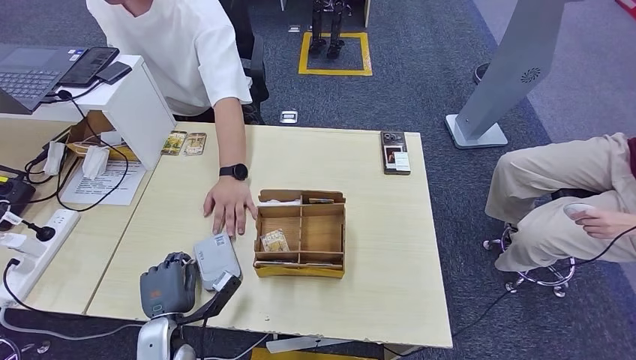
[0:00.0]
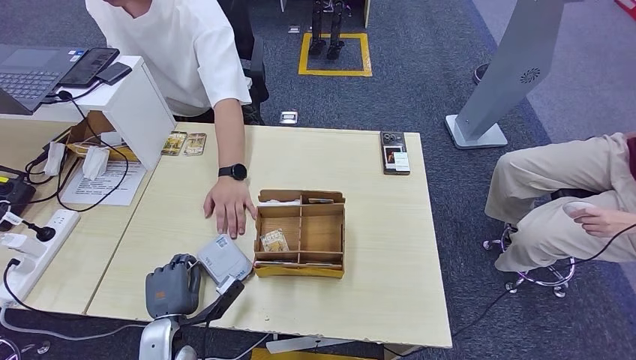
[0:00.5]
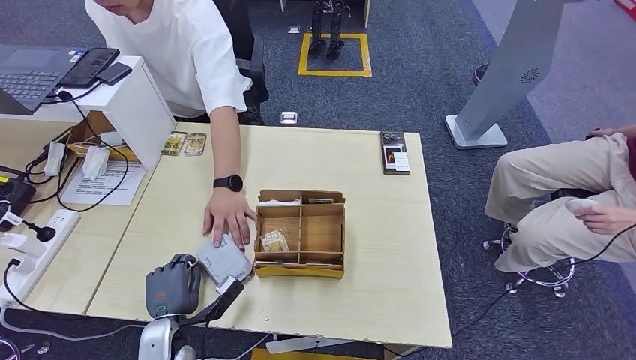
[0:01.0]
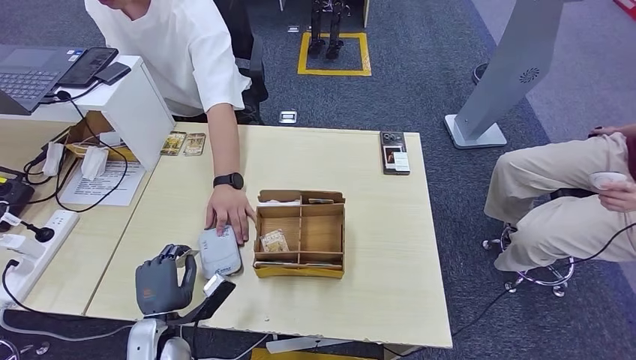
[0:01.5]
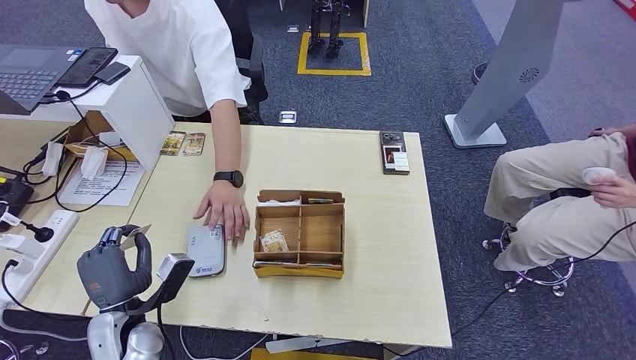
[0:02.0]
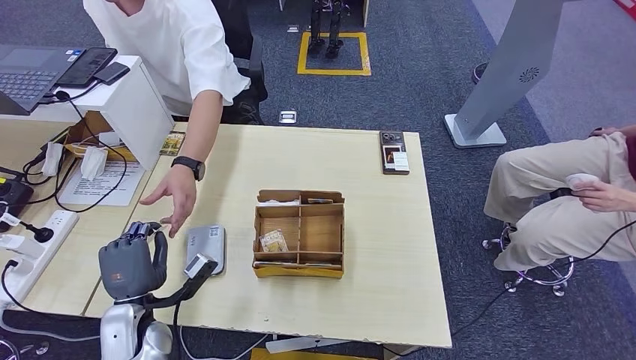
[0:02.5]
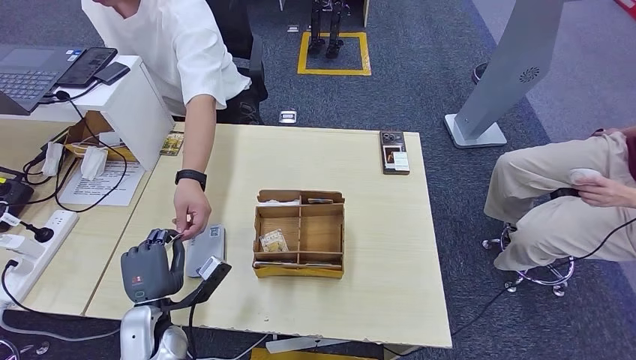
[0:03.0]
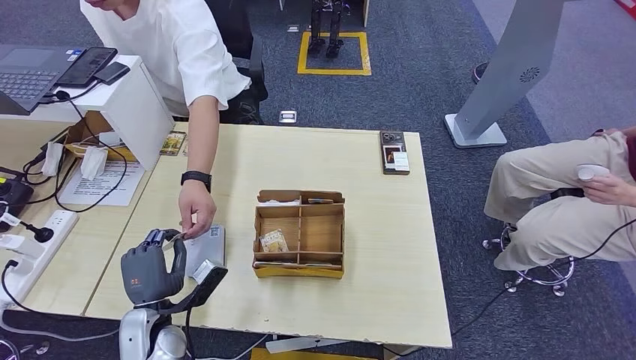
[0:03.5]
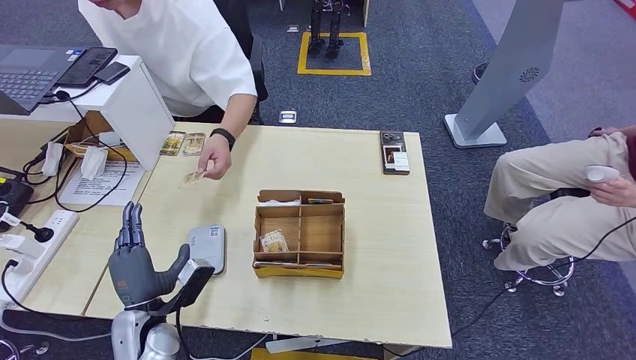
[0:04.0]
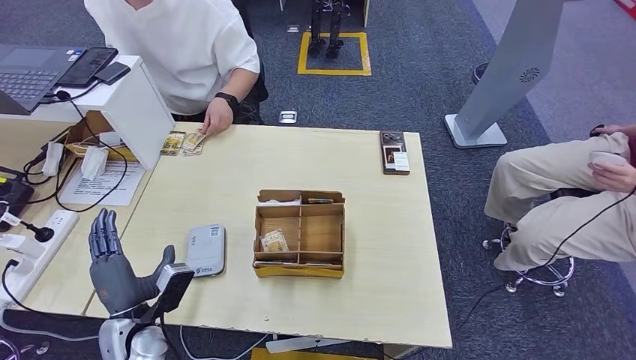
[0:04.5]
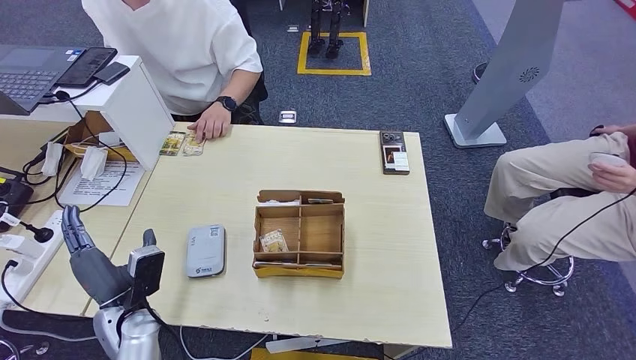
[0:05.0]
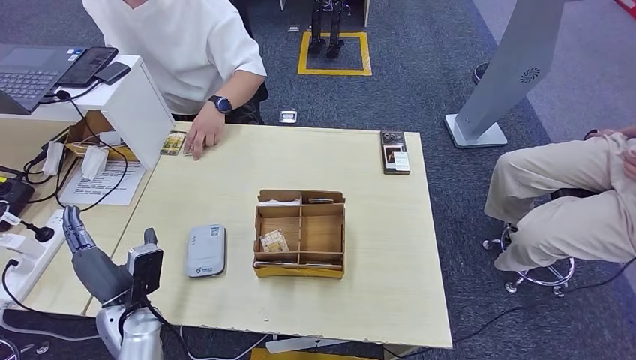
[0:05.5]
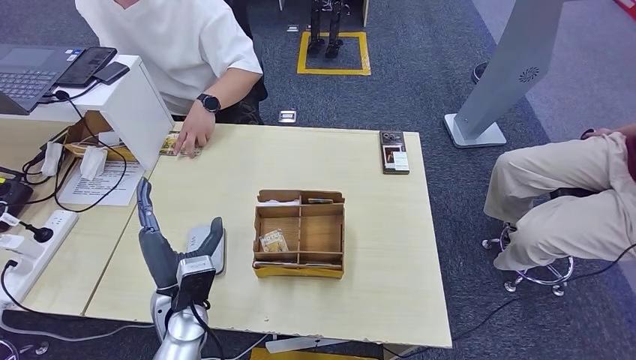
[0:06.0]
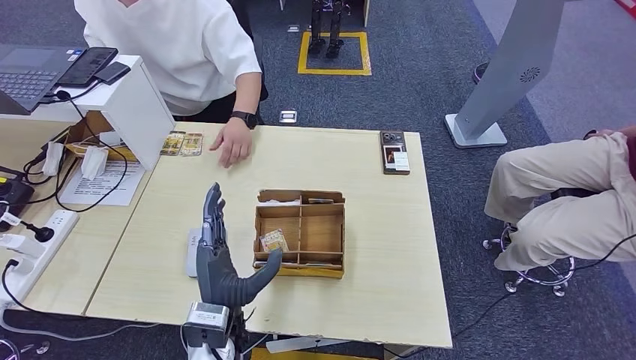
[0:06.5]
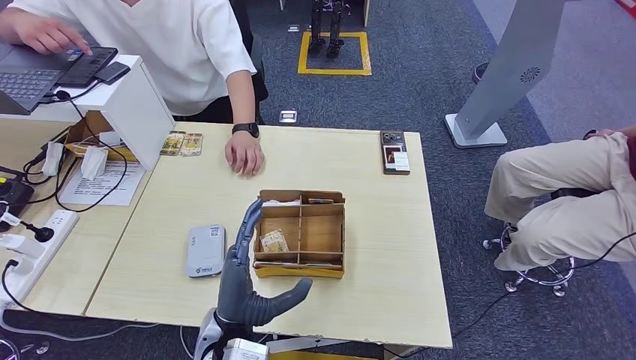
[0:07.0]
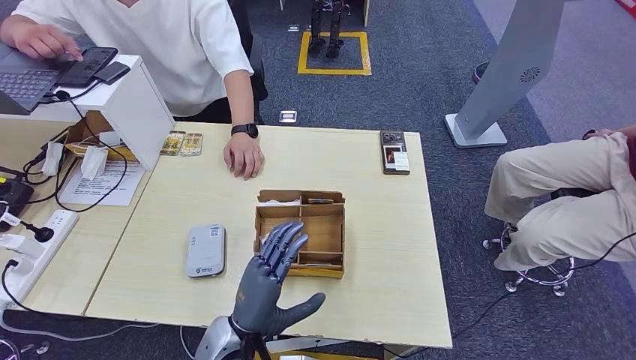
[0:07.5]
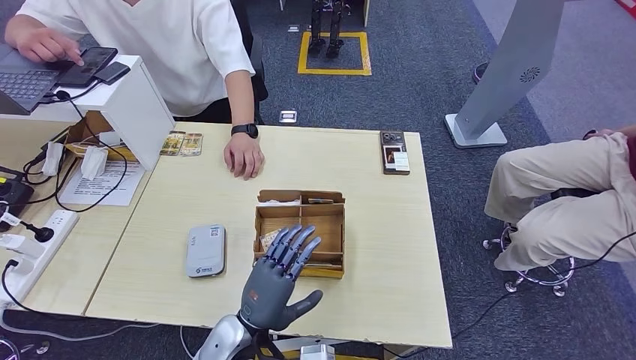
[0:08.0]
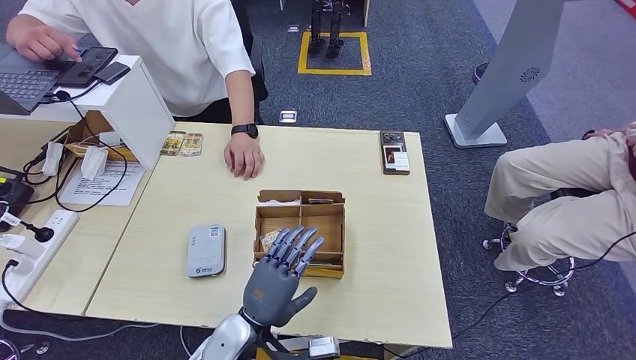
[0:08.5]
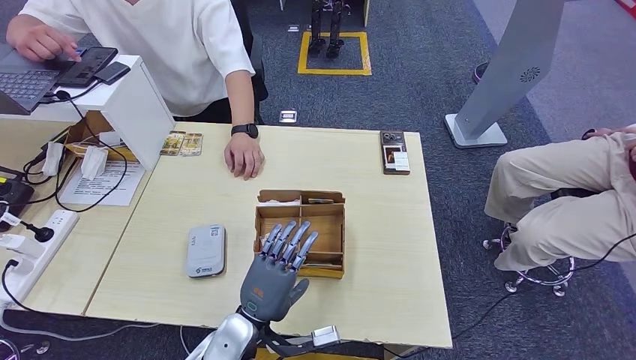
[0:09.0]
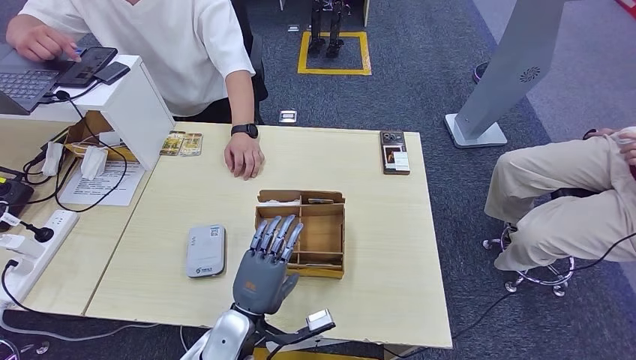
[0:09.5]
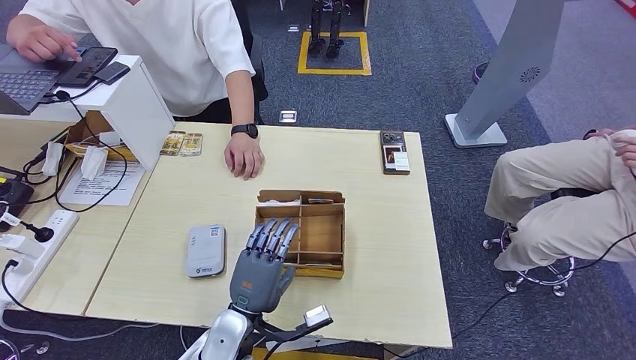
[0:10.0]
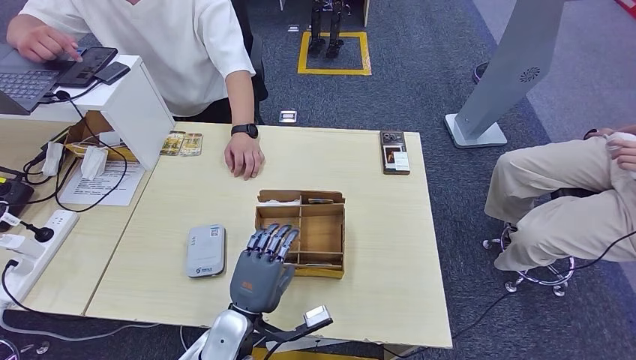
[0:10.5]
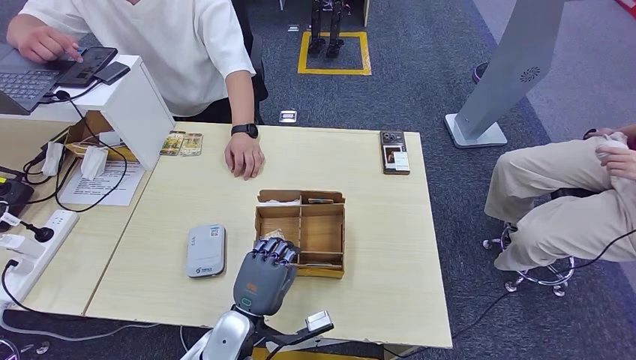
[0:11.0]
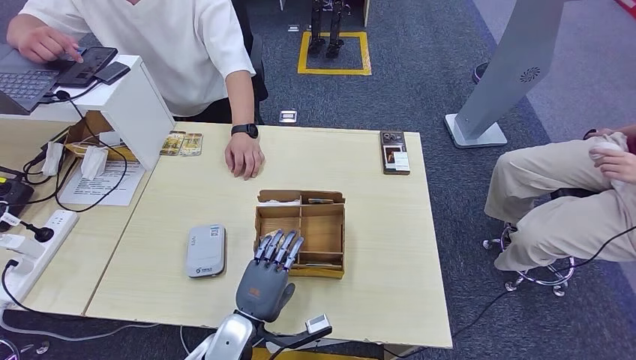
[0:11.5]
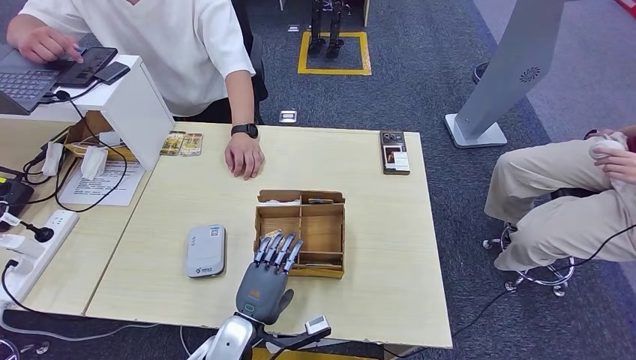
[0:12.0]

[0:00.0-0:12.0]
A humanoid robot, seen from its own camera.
Step, 0:01.5 to 0:04.5: Hand the ID card to the person.
0:00.0 to 0:02.0: The left hand shifts about 5 cm upward.
0:02.0 to 0:04.0: The hands move only a little.
0:04.0 to 0:06.0: The left hand shifts roughly 5 cm to the right.
0:06.0 to 0:08.0: The left hand moves to the right and backward, about 10 cm.
0:10.0 to 0:12.0: The hands move only a little.

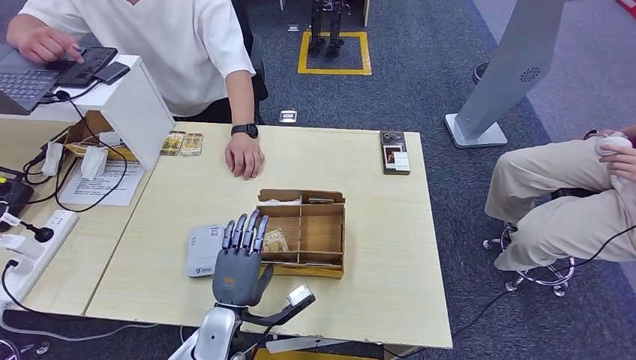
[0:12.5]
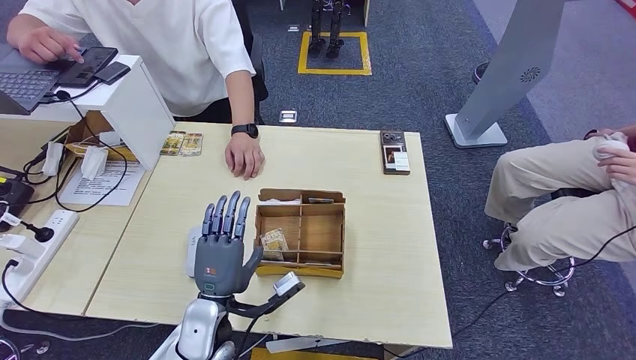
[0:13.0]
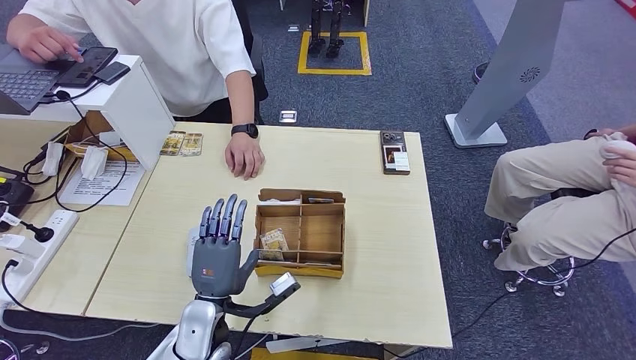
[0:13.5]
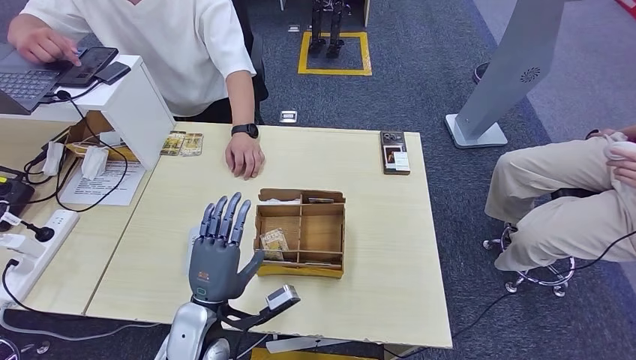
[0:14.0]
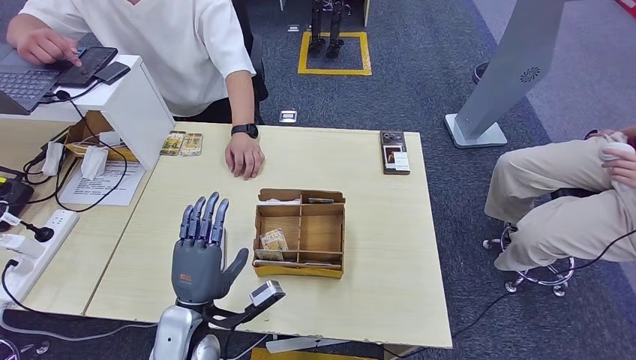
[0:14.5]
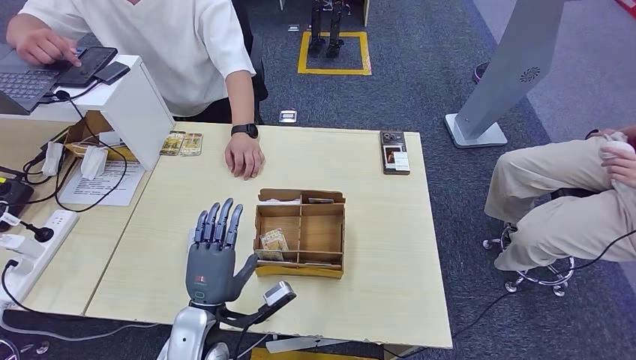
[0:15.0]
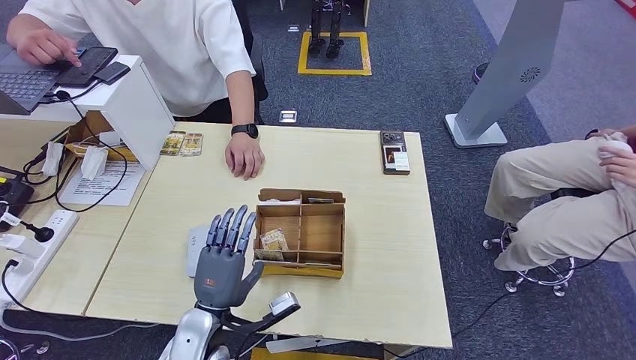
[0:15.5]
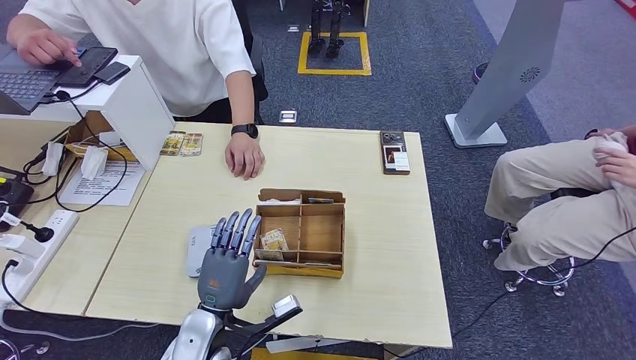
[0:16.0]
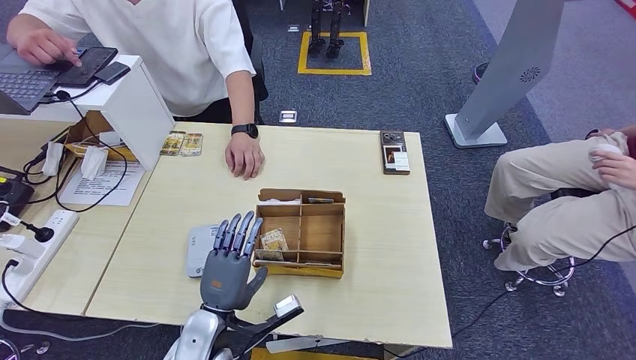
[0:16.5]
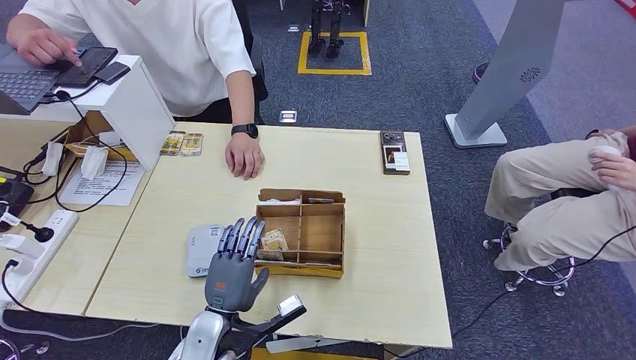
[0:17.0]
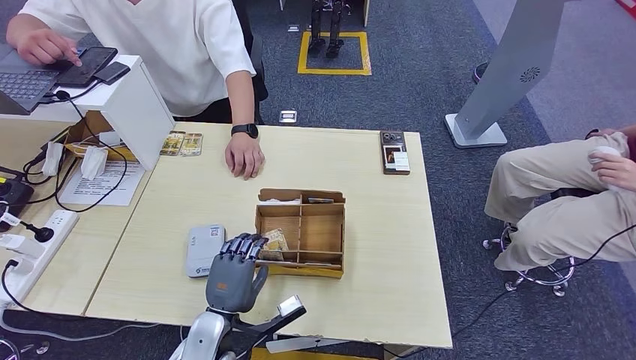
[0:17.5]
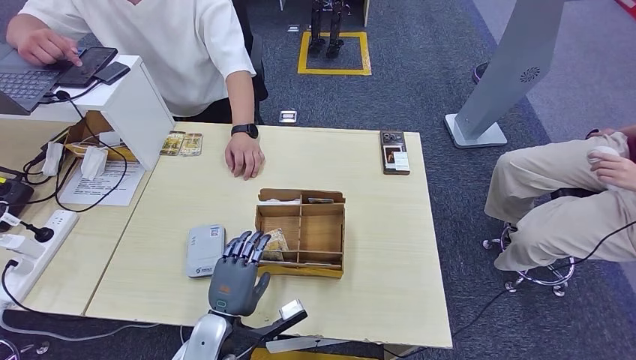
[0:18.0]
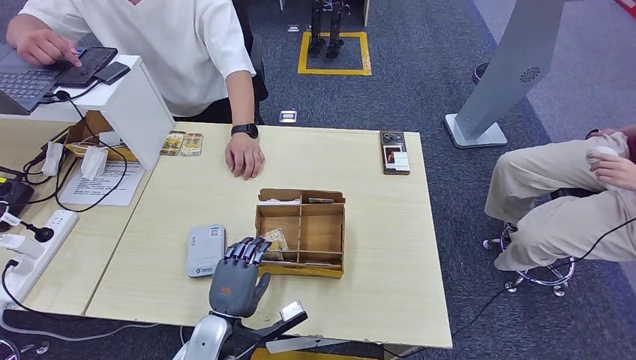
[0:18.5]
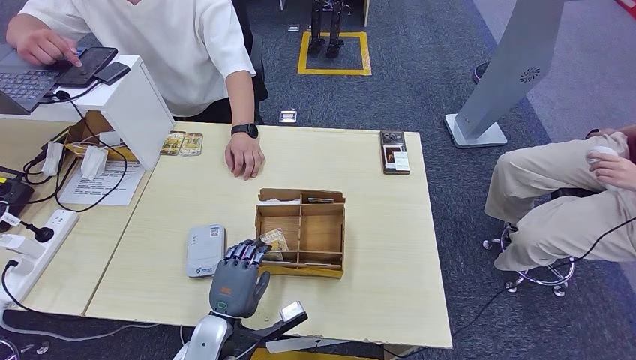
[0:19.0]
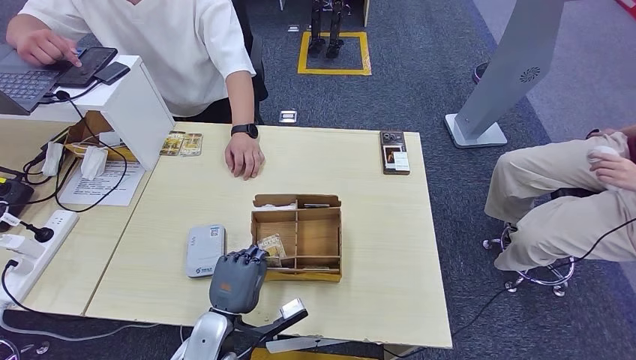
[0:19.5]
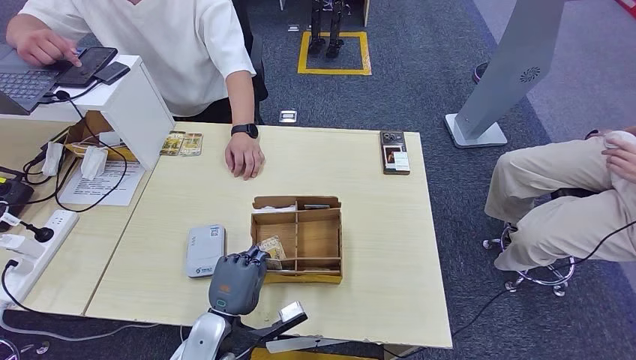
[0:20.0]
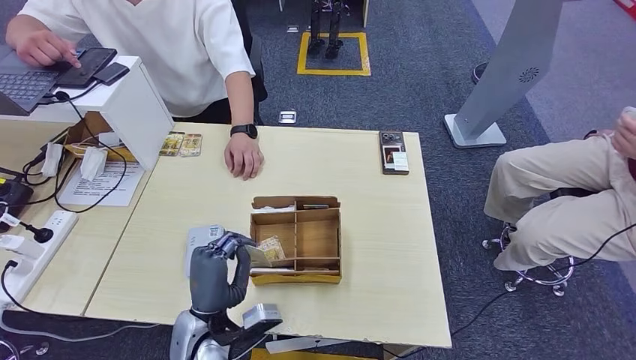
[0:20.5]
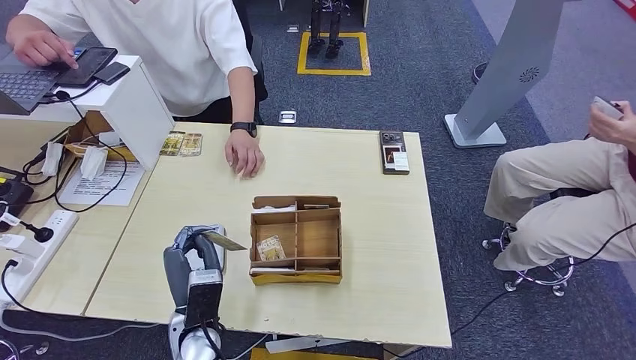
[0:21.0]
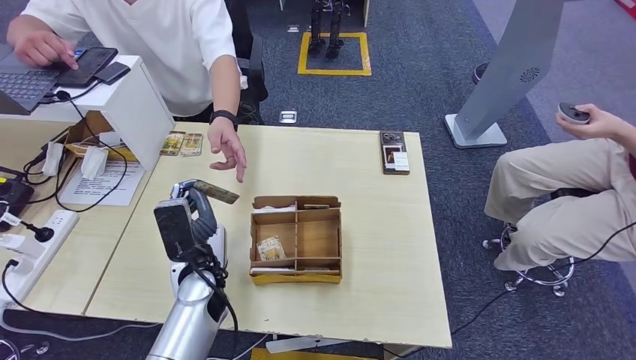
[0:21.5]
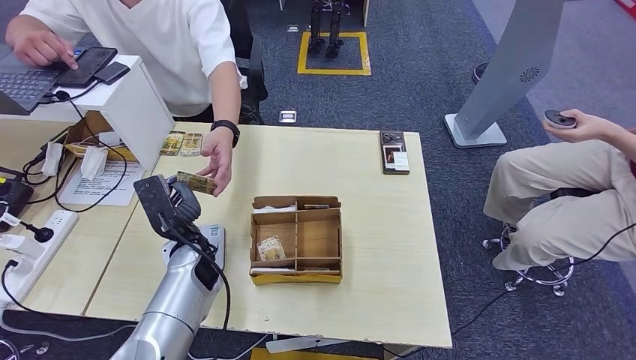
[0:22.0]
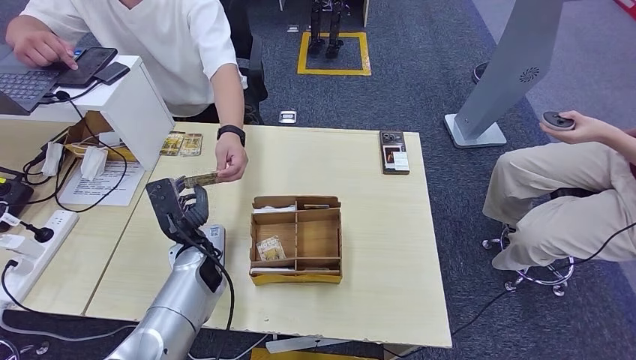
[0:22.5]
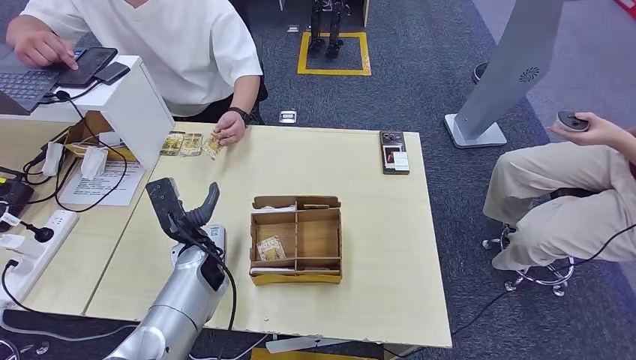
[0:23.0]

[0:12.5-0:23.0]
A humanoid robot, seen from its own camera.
Step, 0:12.5 to 0:20.0: Pick up the room key from the key card box.
Step, 0:21.0 to 0:22.5: Hand the room key to the person.
0:12.5 to 0:14.5: The left hand goes approximately 5 cm upward.
0:14.5 to 0:16.5: The hands stay close to where they were, moving slightly.
0:16.5 to 0:19.0: The hands move only a little.
0:19.0 to 0:21.0: The left hand travels upward by roughly 5 cm.
0:21.0 to 0:23.0: The left hand is displaced forward by approximately 15 cm.
